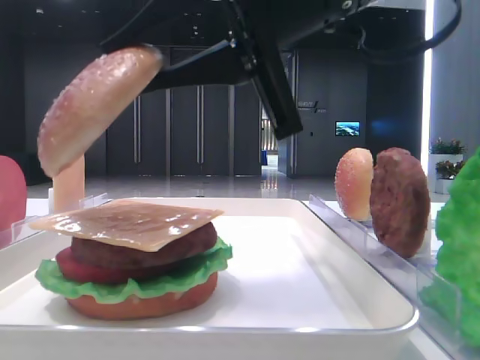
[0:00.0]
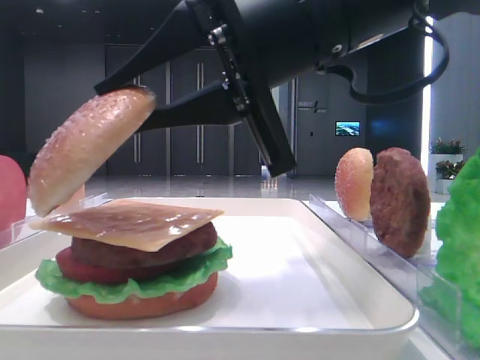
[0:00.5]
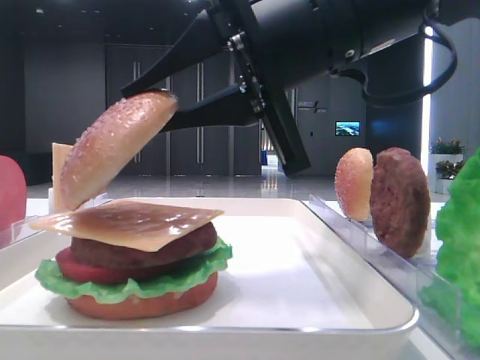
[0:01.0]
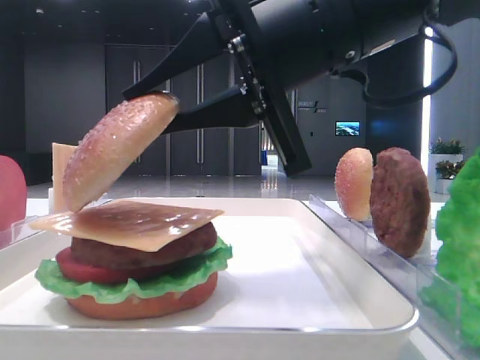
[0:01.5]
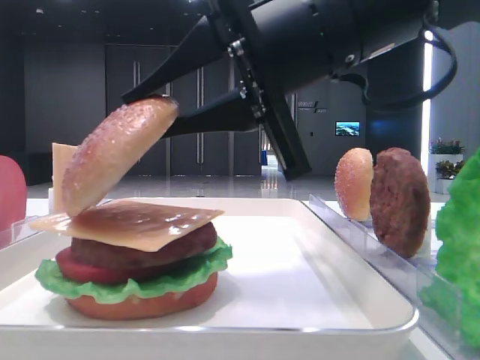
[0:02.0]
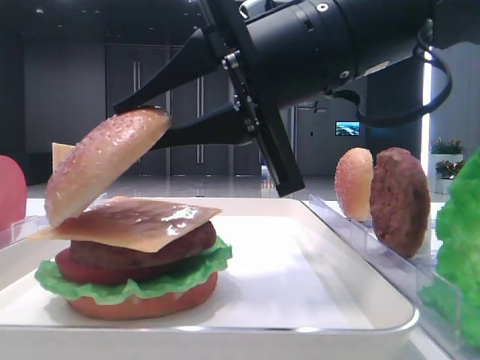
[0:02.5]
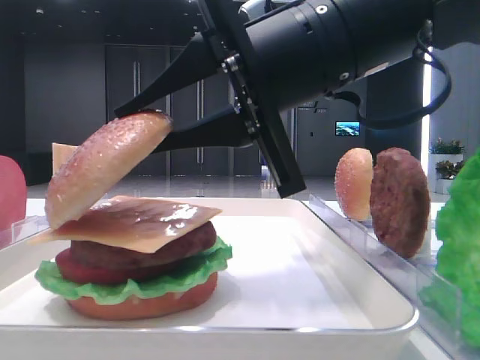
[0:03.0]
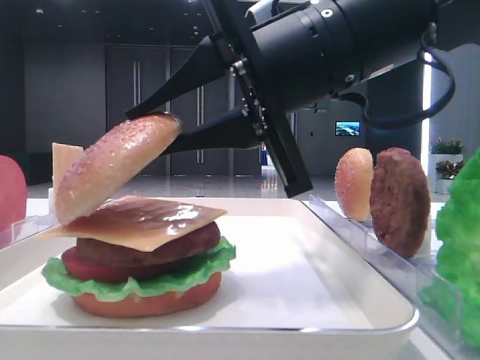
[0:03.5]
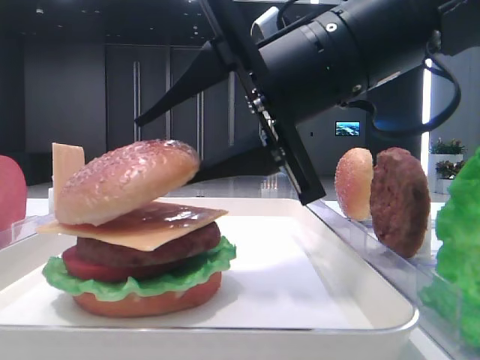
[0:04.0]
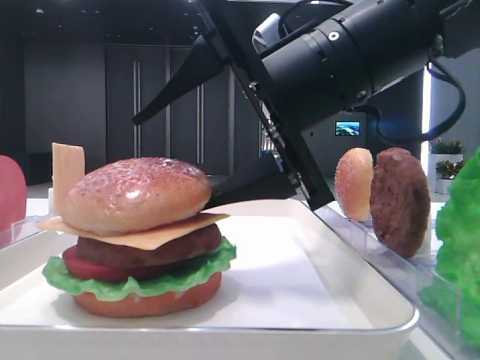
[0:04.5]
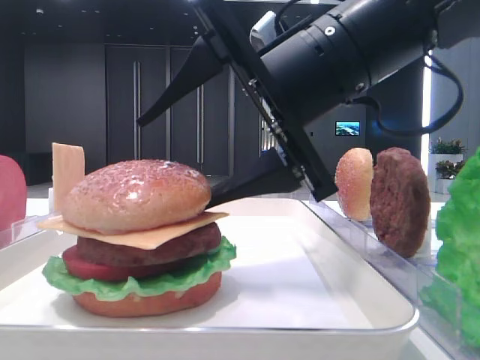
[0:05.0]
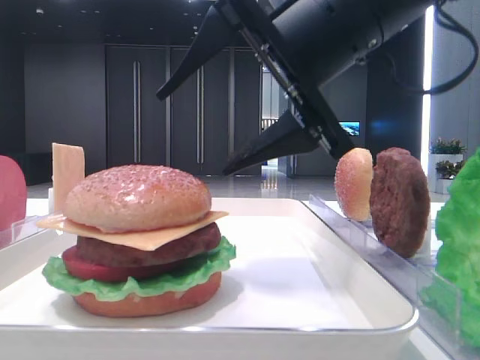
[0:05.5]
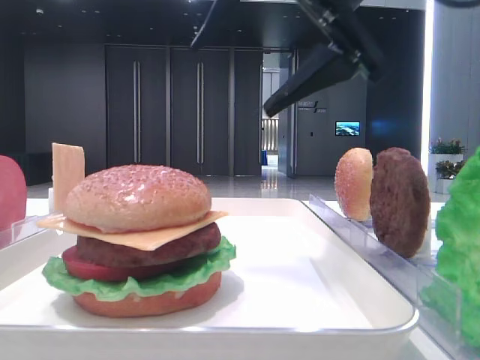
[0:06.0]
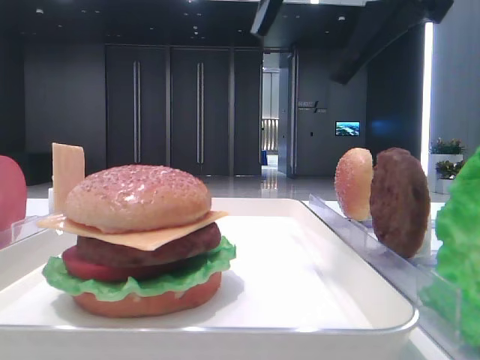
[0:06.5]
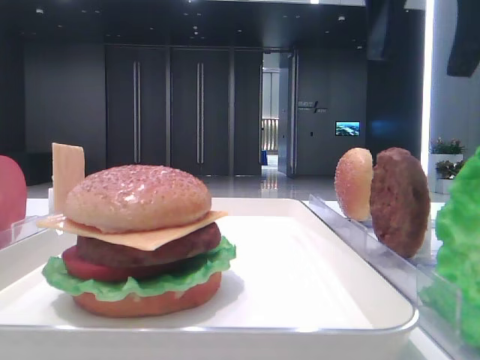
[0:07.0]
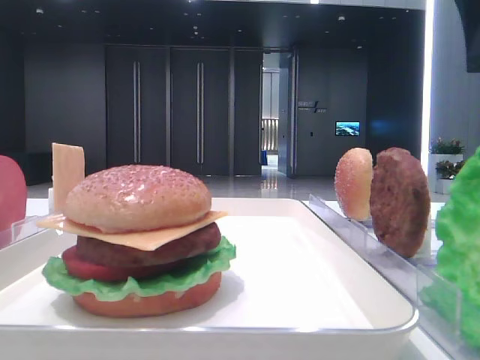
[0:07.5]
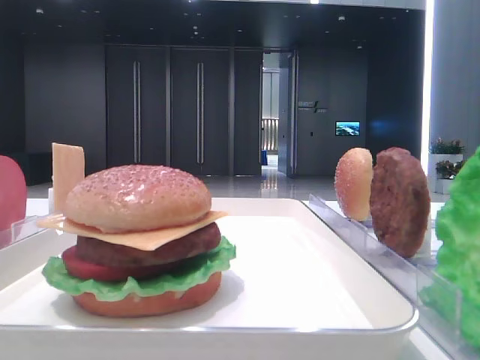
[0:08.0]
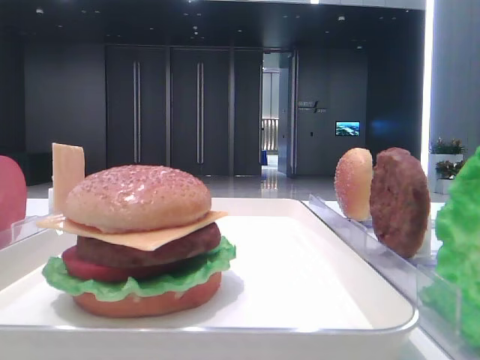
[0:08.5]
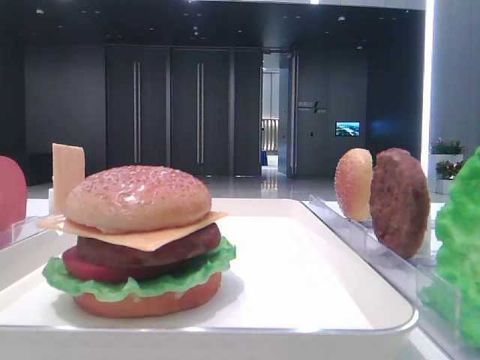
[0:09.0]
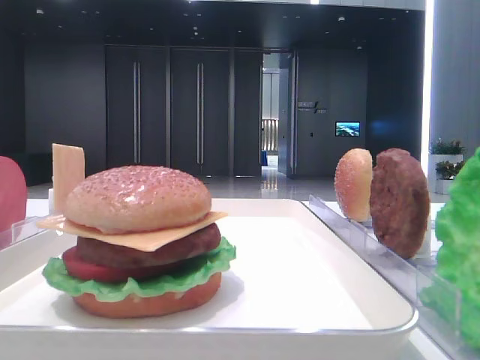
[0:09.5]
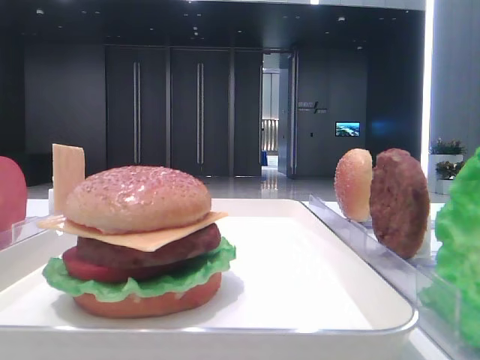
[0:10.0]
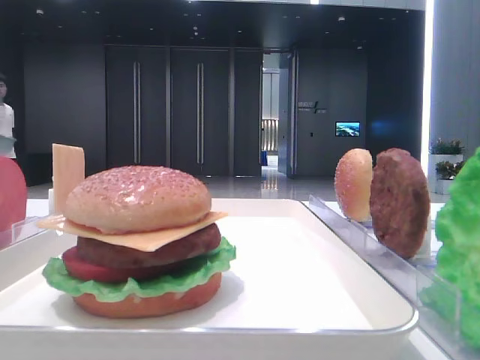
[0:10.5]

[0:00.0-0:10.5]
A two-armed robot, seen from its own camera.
Step, 0:00.0 to 0:05.0: Place the top bread slice on the cheese with the right hand.
0:00.0 to 0:02.0: The grippers move only a little.
0:02.0 to 0:04.0: The right gripper opens up.
0:04.0 to 0:06.5: The right gripper shifts roughly 10 cm upward, and opens.
0:06.5 to 0:08.5: The right gripper shifts approximately 20 cm to the right.

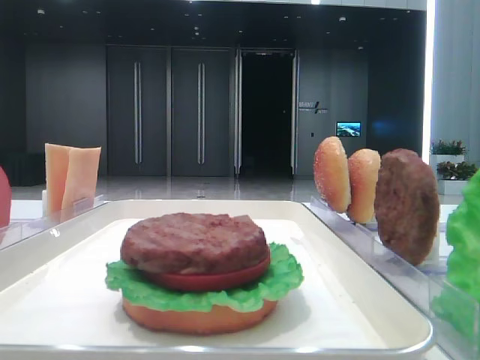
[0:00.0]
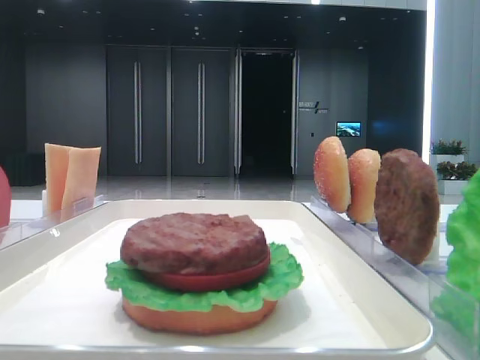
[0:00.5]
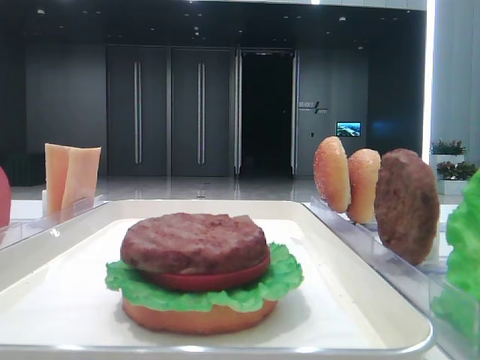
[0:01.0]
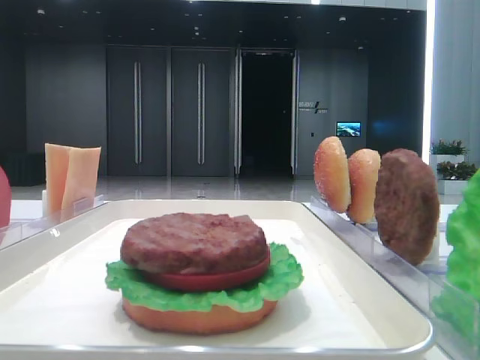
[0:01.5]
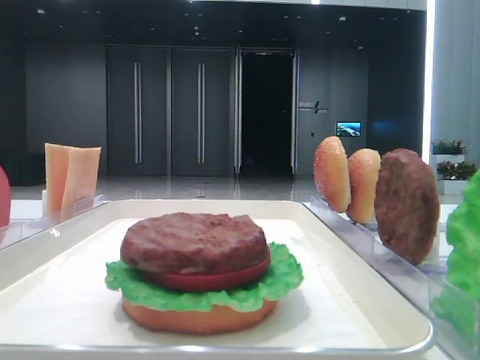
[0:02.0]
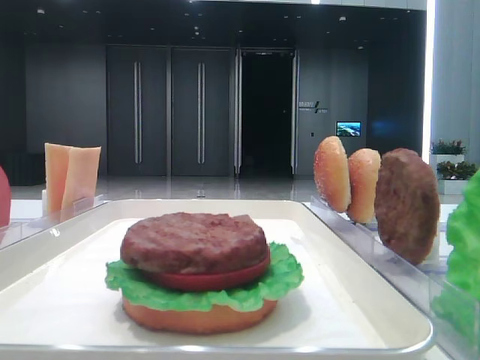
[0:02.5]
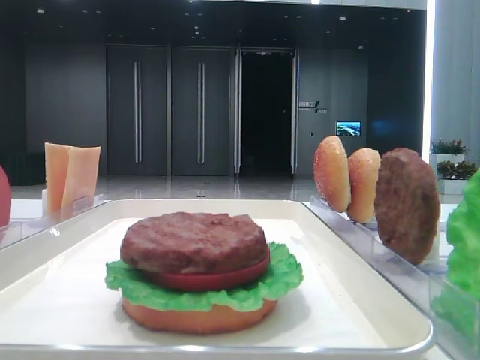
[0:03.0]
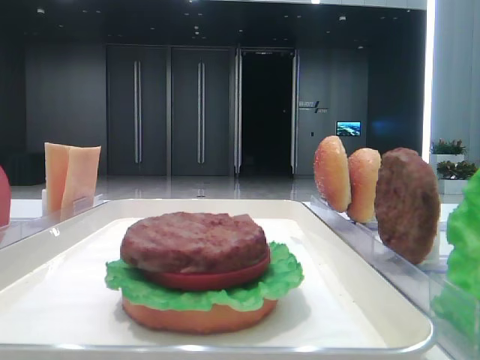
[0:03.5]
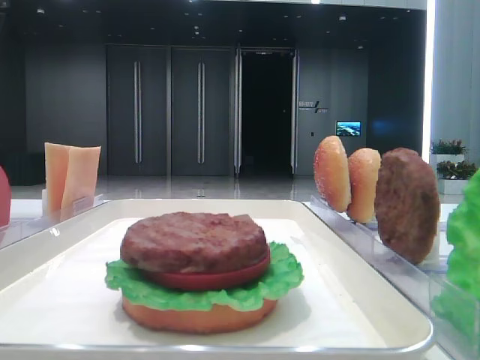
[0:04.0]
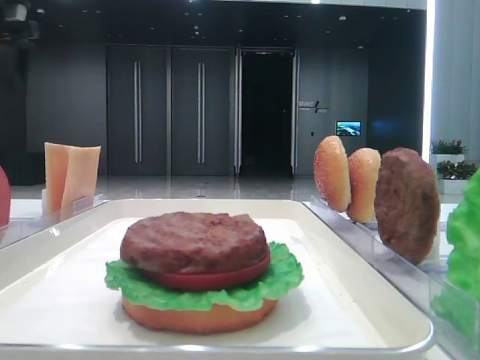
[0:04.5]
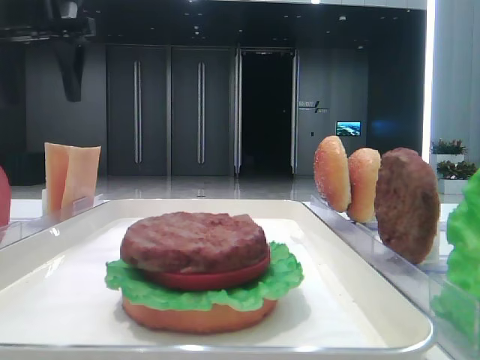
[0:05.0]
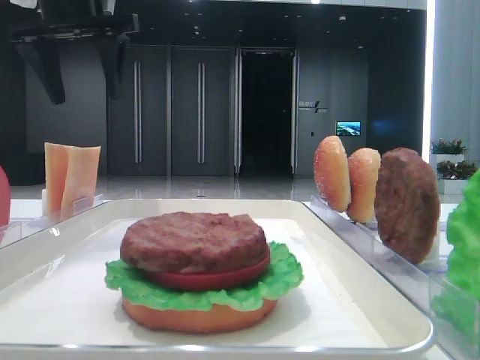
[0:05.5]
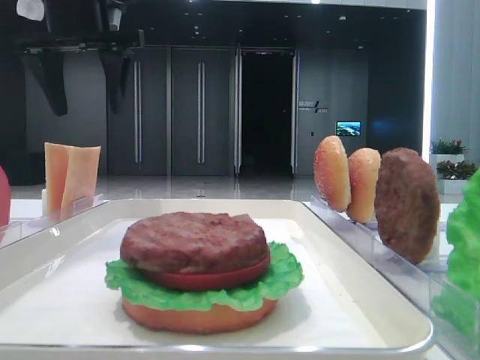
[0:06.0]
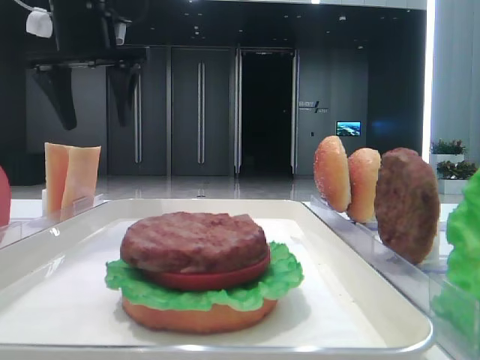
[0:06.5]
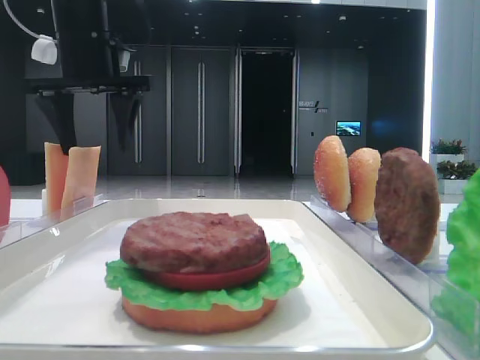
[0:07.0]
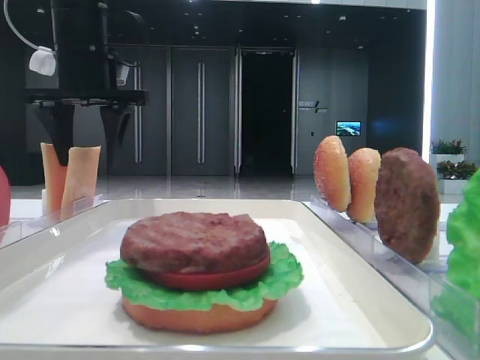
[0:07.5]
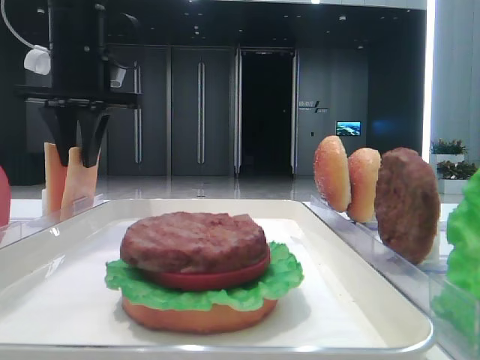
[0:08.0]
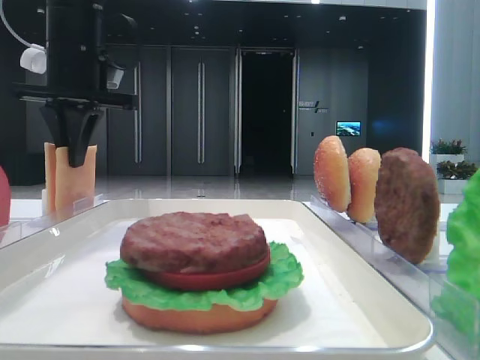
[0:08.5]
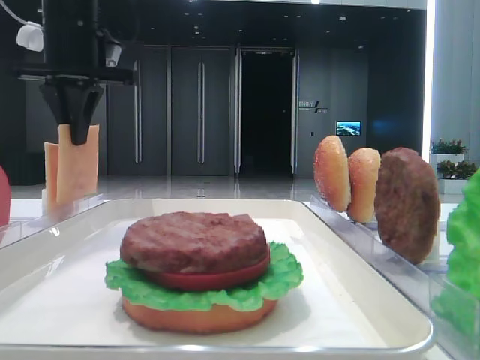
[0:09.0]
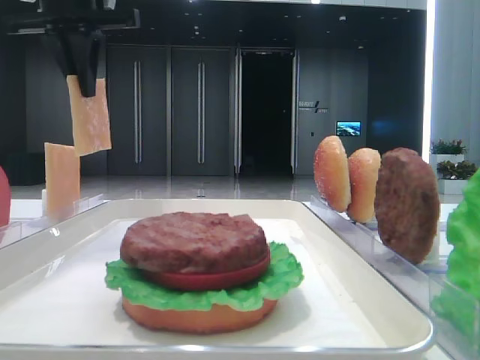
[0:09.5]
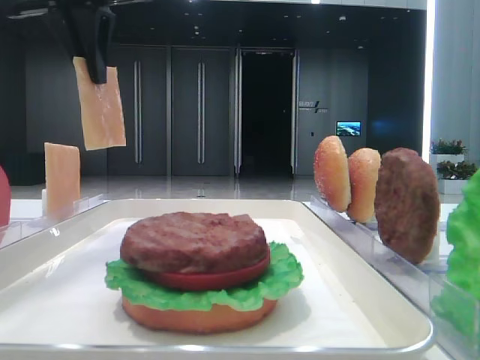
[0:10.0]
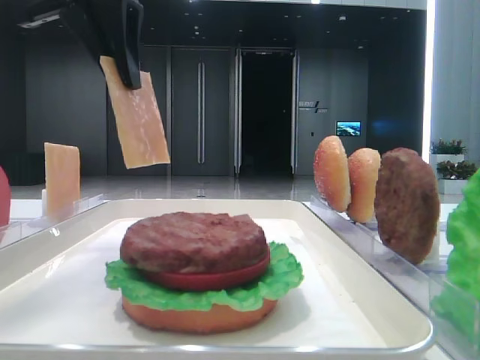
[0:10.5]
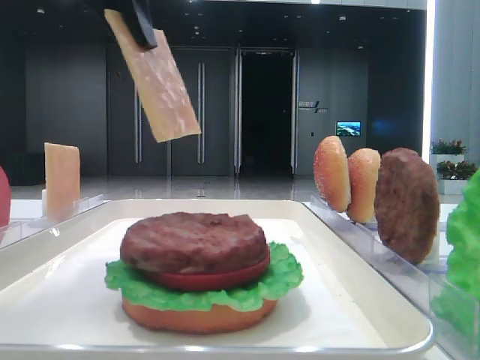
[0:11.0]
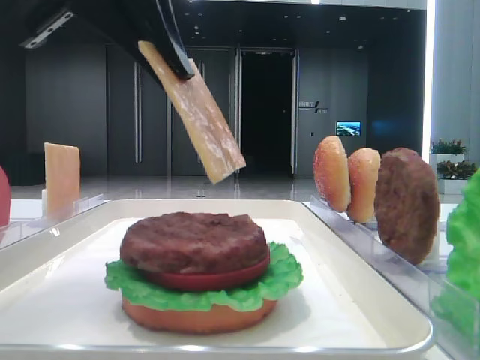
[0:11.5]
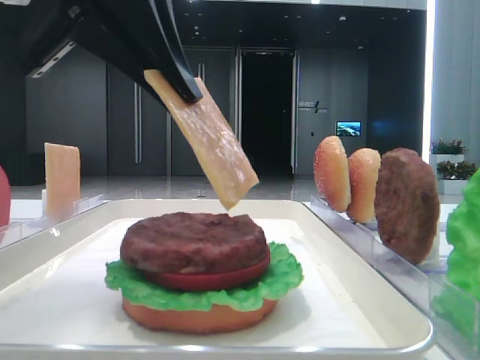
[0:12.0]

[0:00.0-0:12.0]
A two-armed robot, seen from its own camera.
Step, 0:00.0 to 0:08.5: Pick up the cheese slice with the left hand.
0:04.0 to 0:06.0: The left gripper shifts roughly 15 cm to the right.
0:06.0 to 0:08.0: The left gripper heads downward, covering about 5 cm, and closes.
0:08.0 to 0:10.0: The left gripper shifts approximately 10 cm upward and backward.
0:10.0 to 0:12.0: The left gripper travels backward, downward and to the right by some 15 cm.

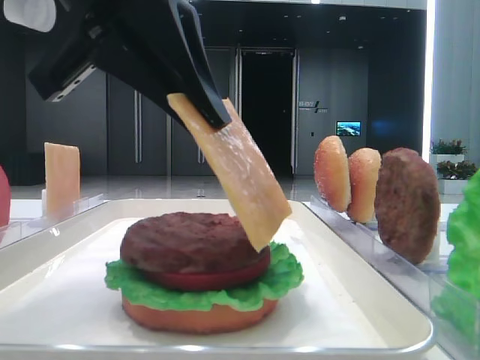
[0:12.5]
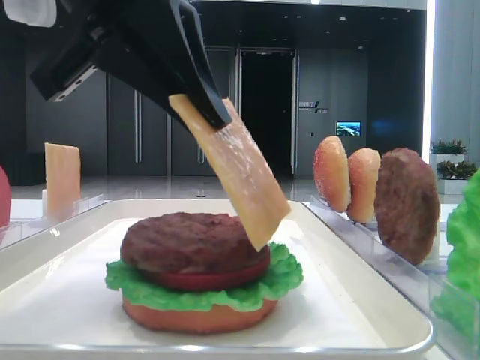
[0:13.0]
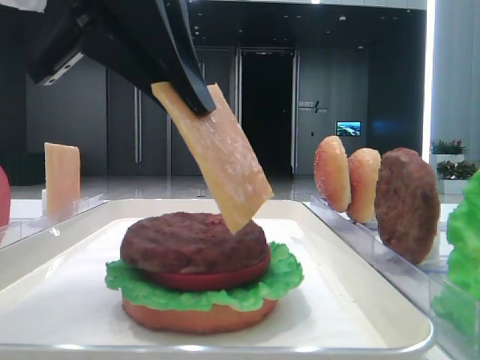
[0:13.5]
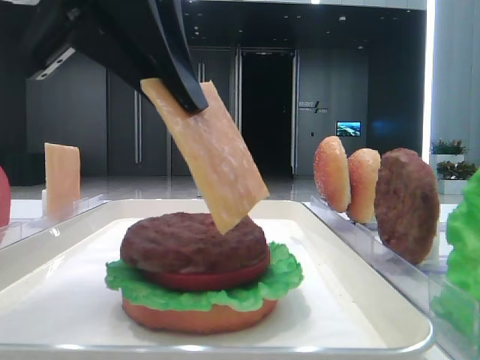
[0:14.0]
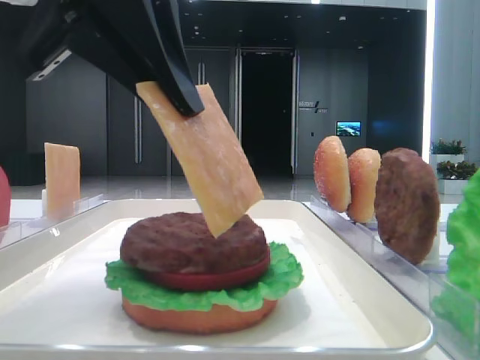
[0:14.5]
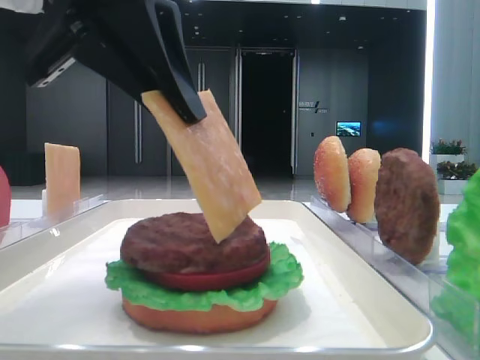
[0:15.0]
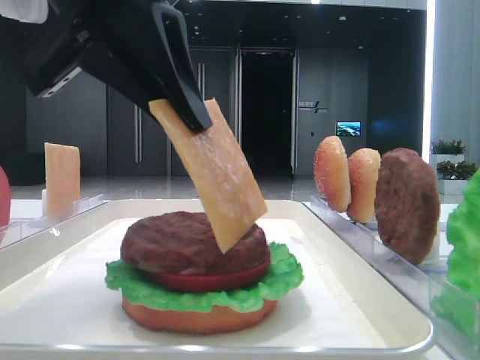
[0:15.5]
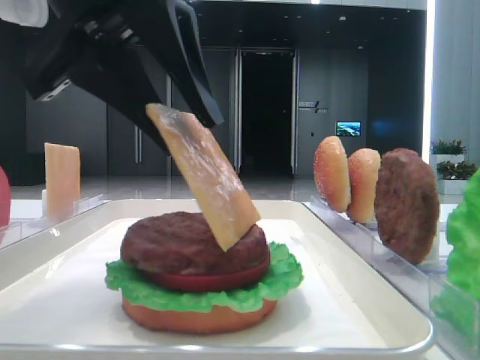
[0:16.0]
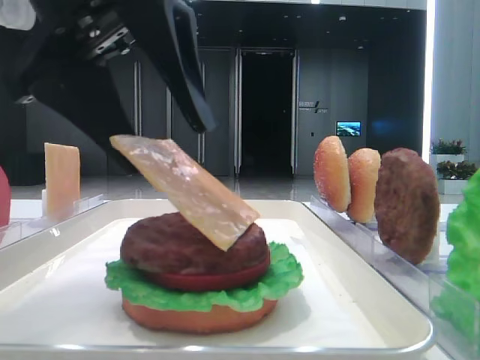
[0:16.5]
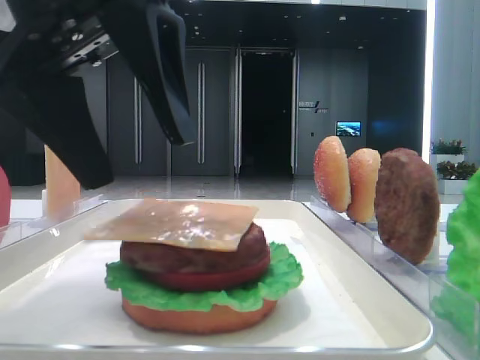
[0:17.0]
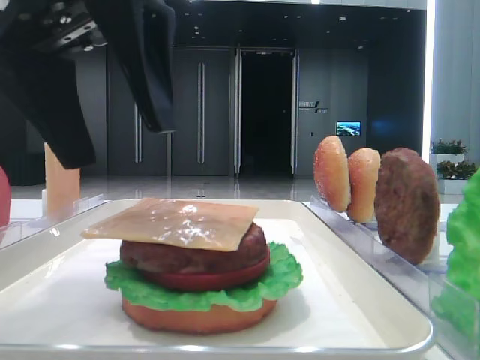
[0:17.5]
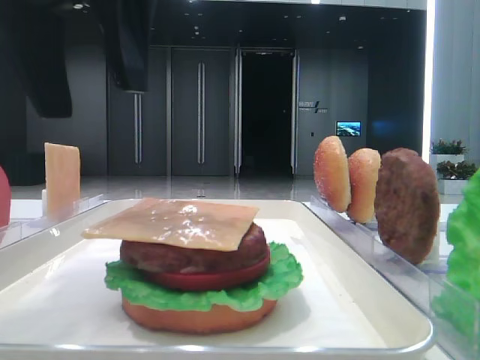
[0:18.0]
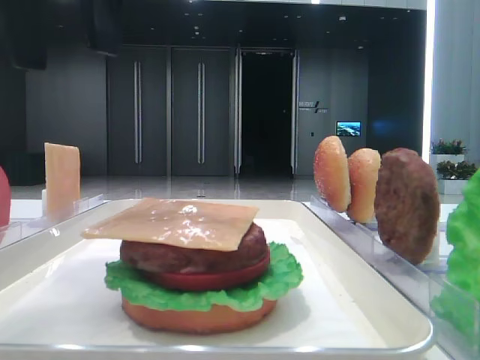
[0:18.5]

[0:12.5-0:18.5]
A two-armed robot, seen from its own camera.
Step, 0:12.5 to 0:16.5: Place the cheese slice on the patty with the left hand.
0:12.5 to 0:14.5: The grippers stay close to where they were, moving slightly.
0:14.5 to 0:16.5: The left gripper opens its fingers.
0:16.5 to 0:18.5: The left gripper moves upward, approximately 10 cm.
